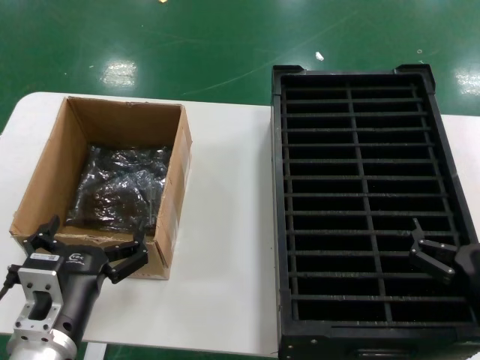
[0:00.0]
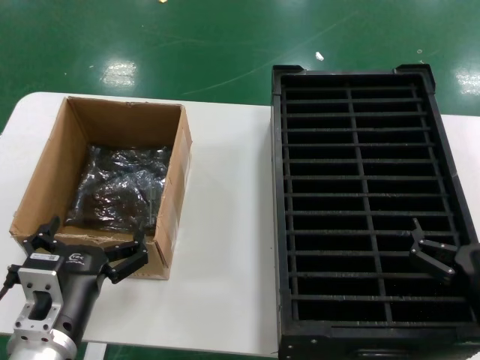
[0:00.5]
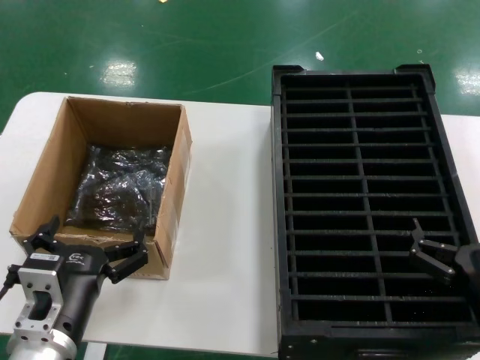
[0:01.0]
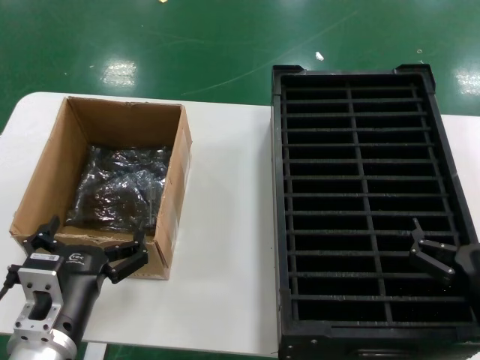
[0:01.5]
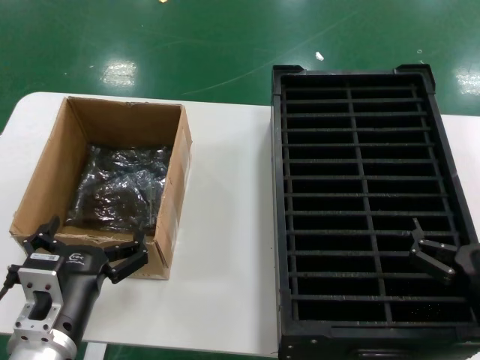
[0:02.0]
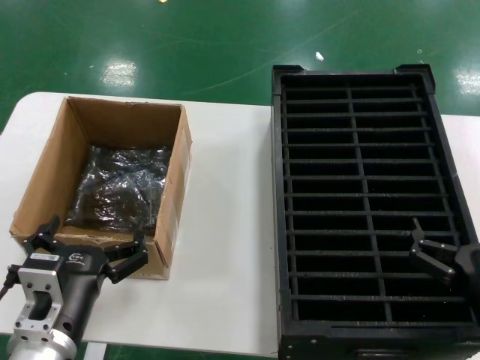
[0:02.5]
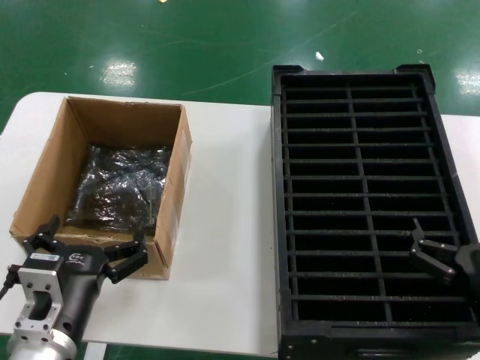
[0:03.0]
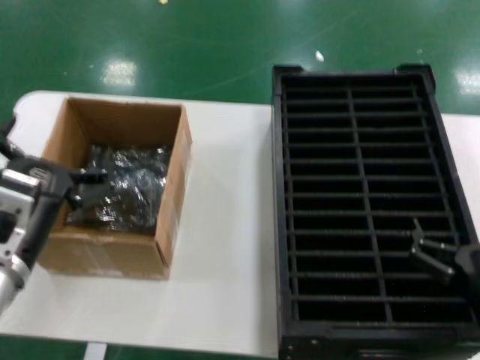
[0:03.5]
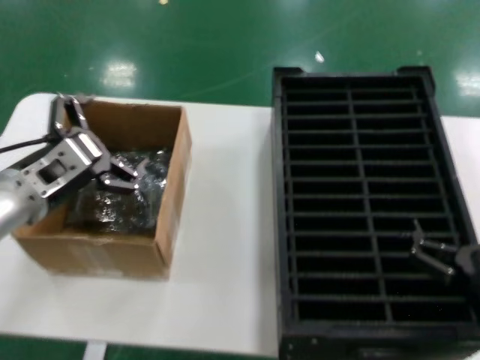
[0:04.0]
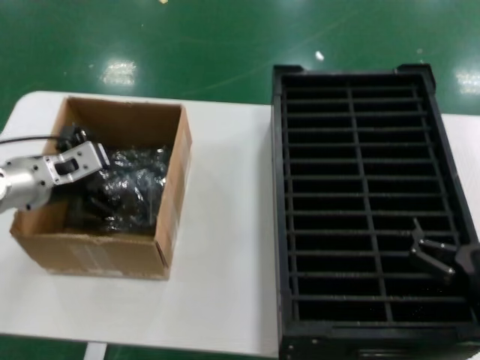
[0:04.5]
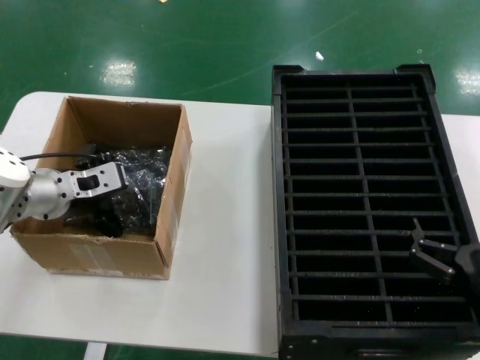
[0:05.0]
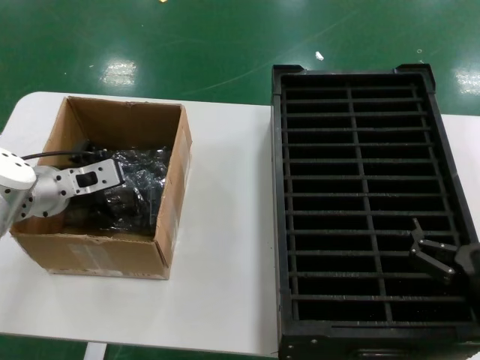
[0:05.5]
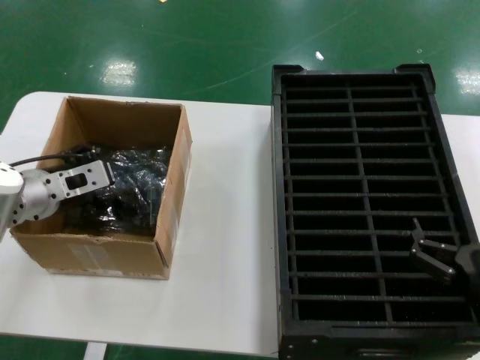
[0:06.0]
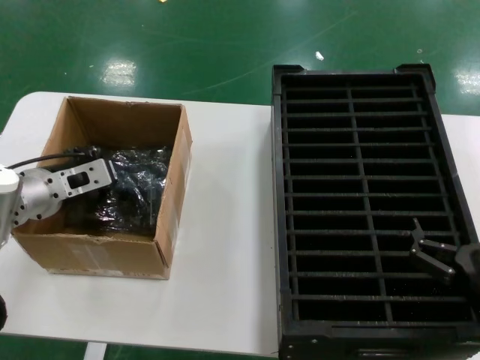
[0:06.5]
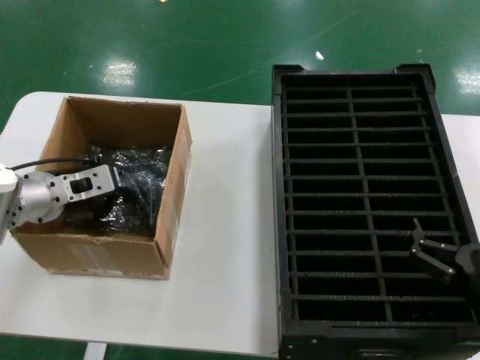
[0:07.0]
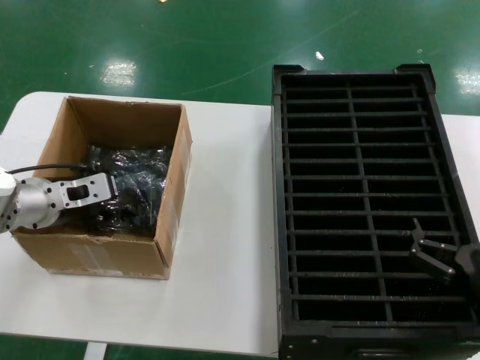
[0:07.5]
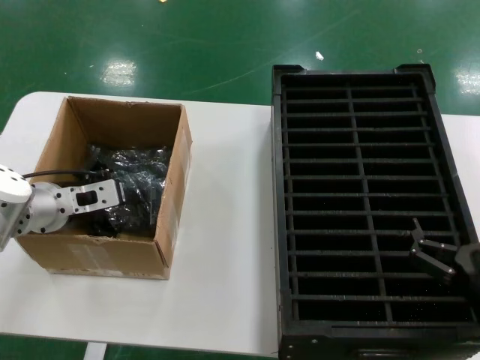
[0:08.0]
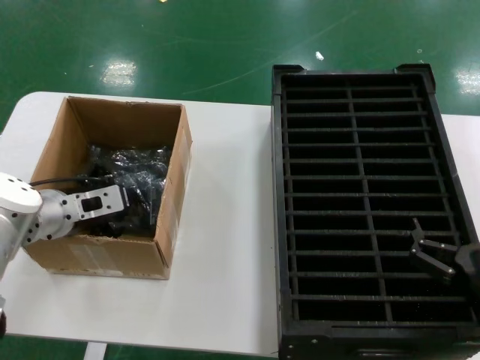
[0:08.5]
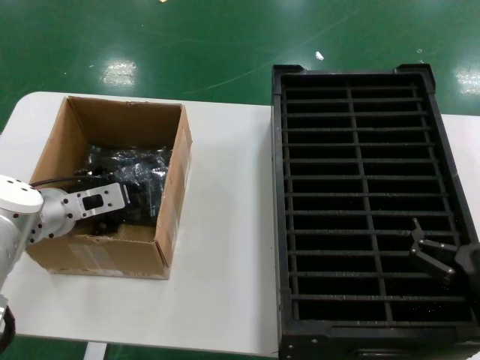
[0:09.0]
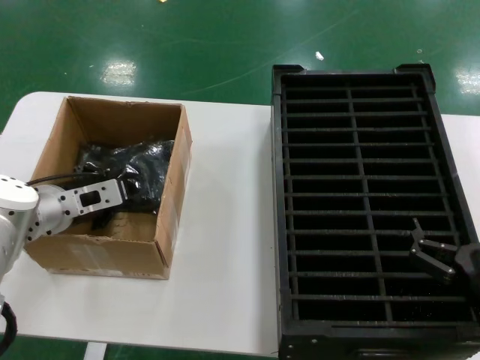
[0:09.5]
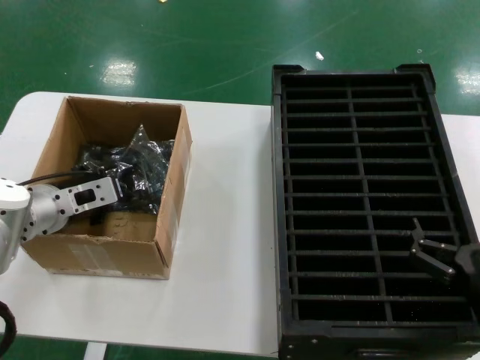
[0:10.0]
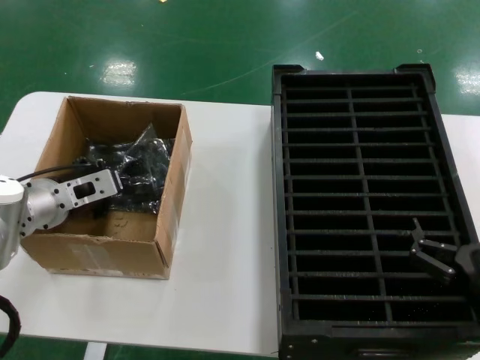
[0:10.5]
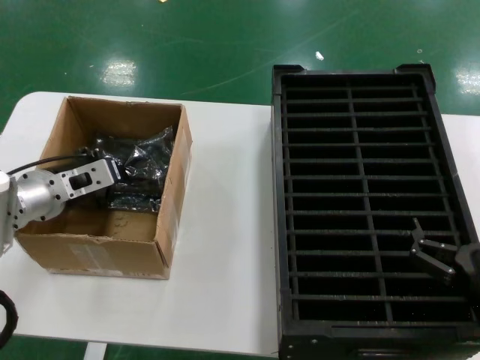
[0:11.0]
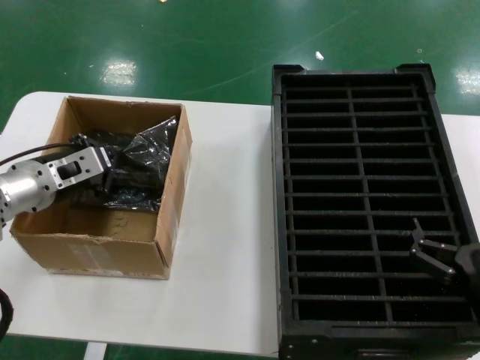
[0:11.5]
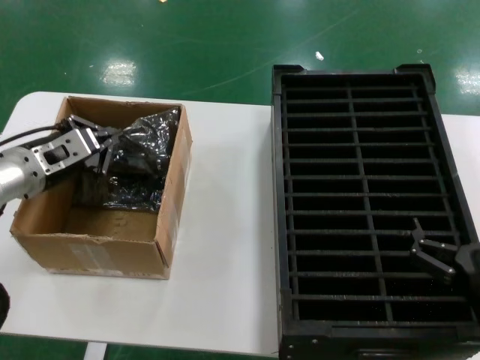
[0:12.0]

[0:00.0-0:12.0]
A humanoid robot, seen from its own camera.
Task of the whole recording: take out graphics card from box remove packaging put into black container.
Step, 0:00.0 to 0:10.5: Grasp the bag.
0:00.0 to 0:02.0: Both hands stay about where they are.
0:02.0 to 0:04.0: The left hand heads upward, forward and to the left, covering some 20 cm.
0:04.0 to 0:06.0: The left hand heads forward, covering some 10 cm.
0:06.0 to 0:10.0: The hands make only small movements.
0:10.0 to 0:12.0: The left hand ends up some 5 cm from where it was.

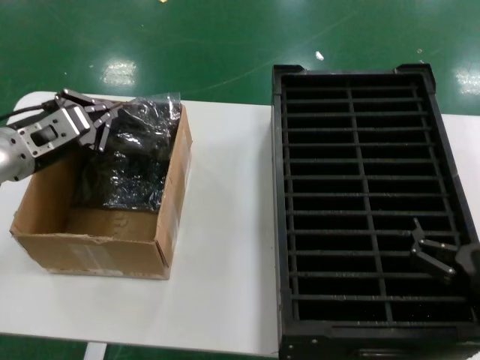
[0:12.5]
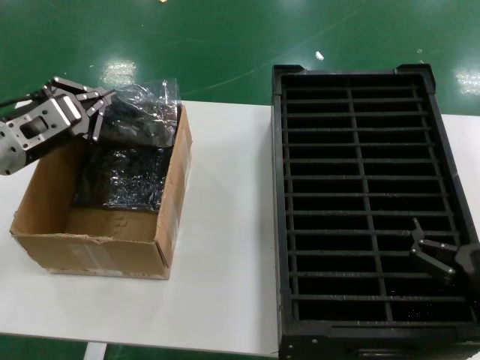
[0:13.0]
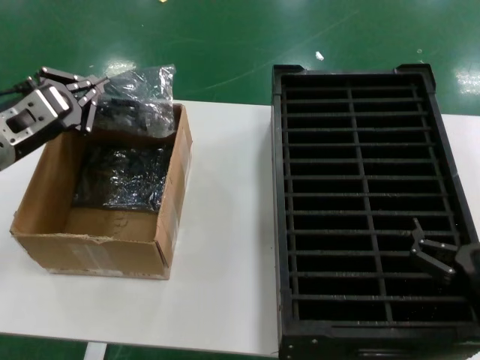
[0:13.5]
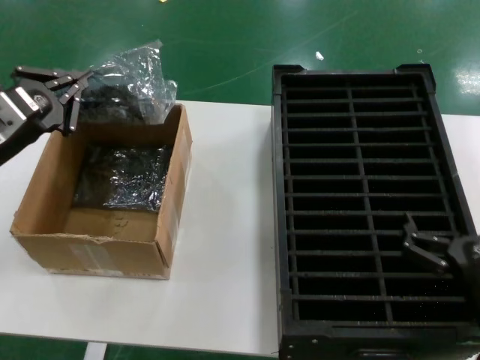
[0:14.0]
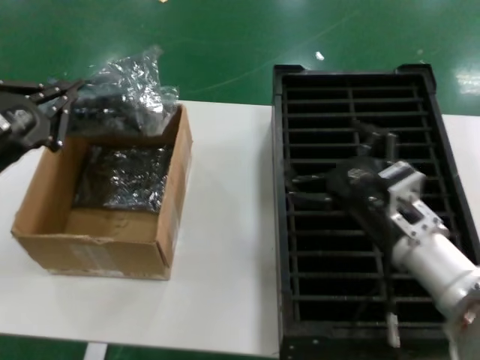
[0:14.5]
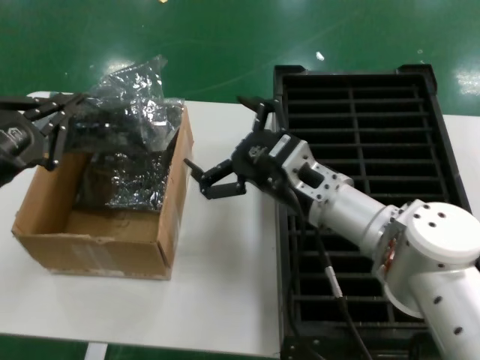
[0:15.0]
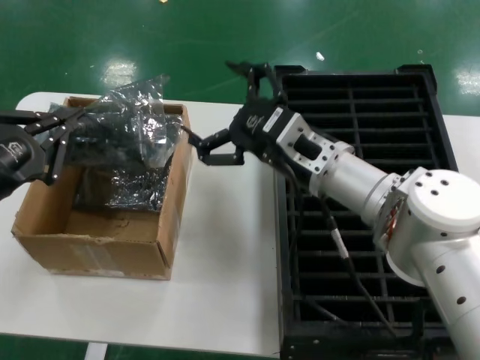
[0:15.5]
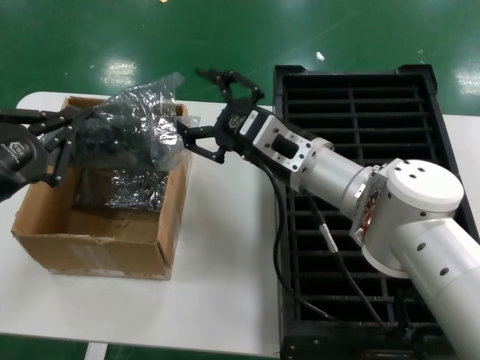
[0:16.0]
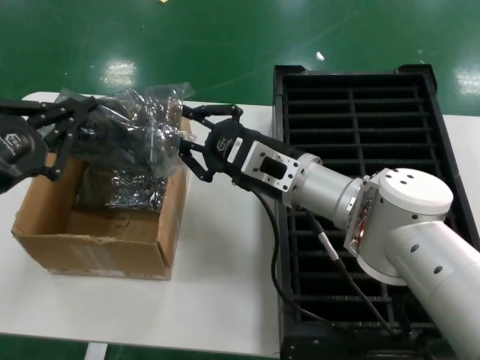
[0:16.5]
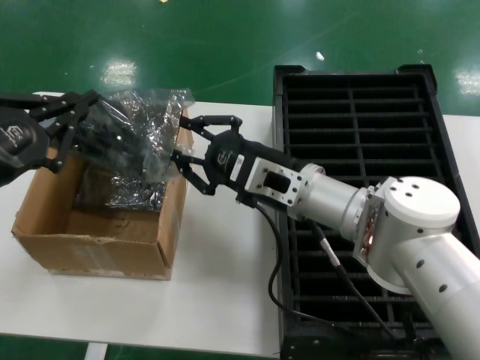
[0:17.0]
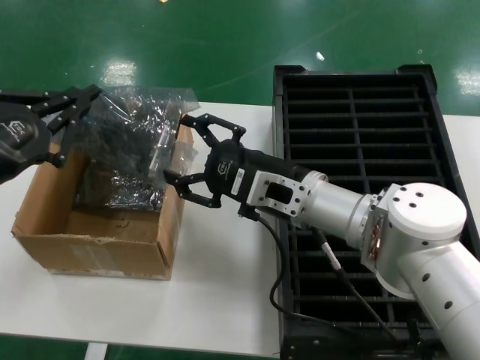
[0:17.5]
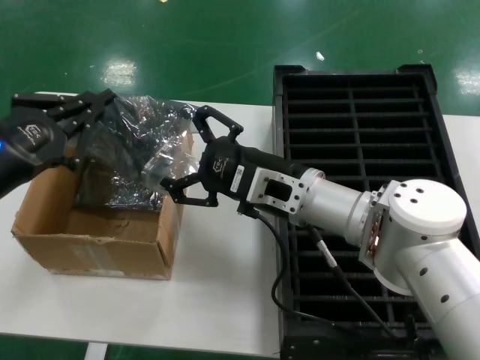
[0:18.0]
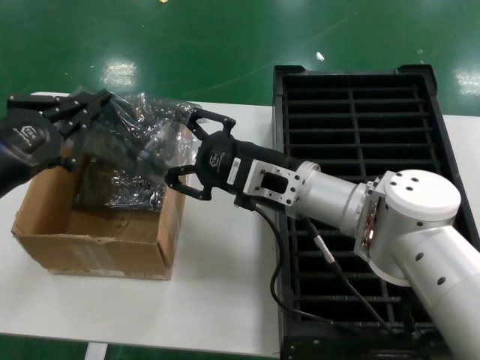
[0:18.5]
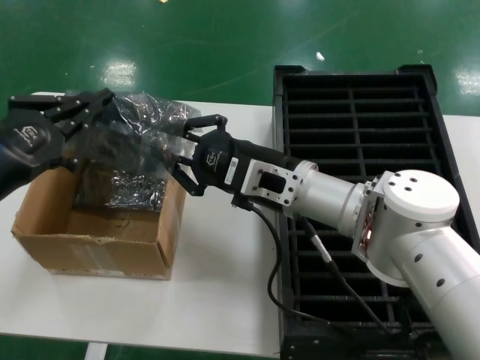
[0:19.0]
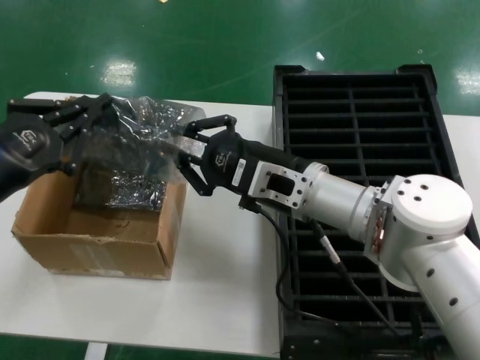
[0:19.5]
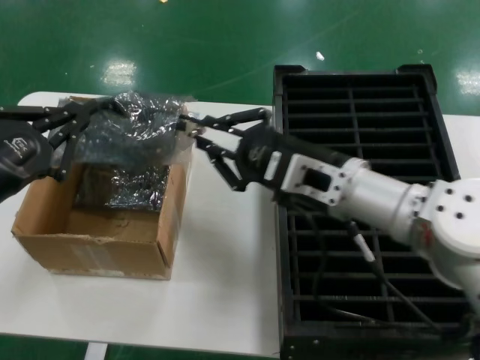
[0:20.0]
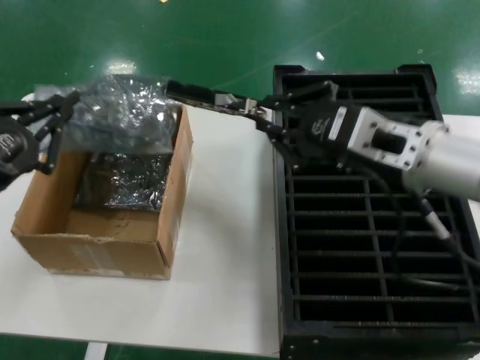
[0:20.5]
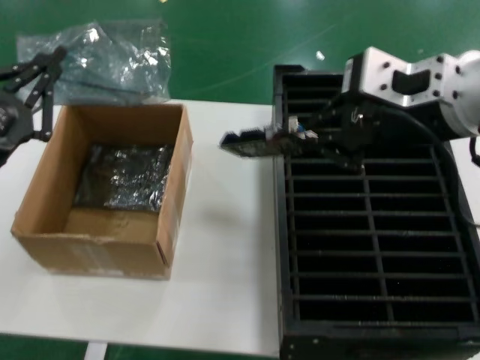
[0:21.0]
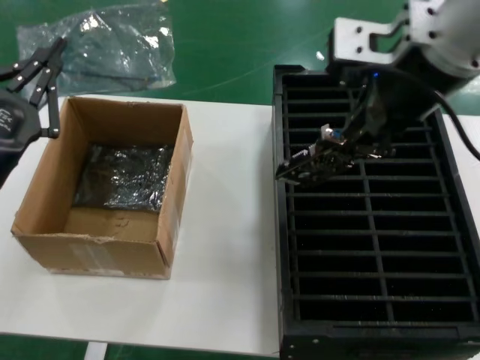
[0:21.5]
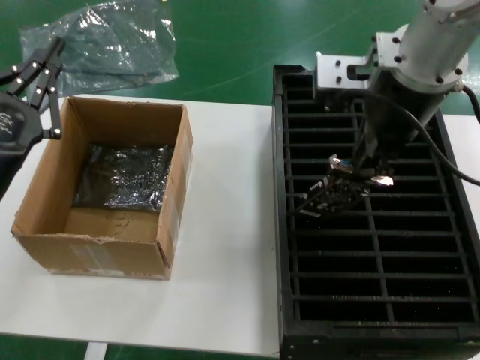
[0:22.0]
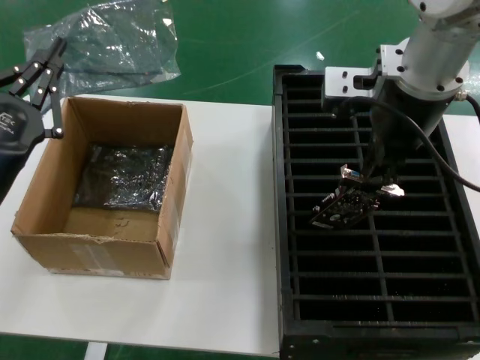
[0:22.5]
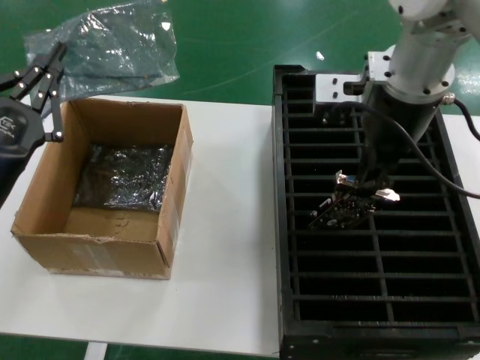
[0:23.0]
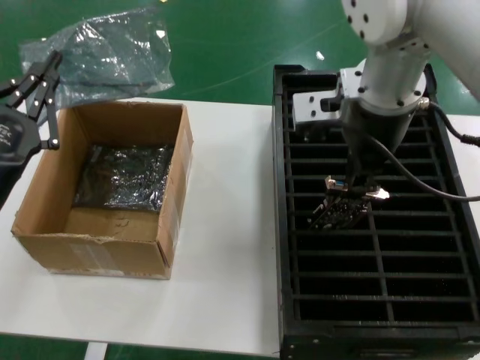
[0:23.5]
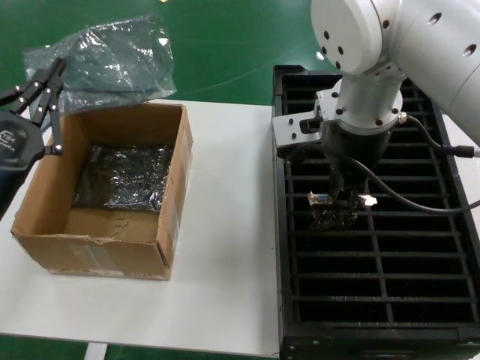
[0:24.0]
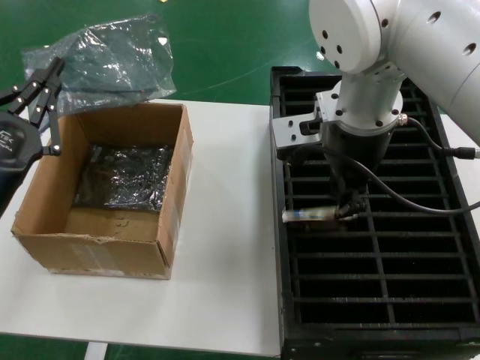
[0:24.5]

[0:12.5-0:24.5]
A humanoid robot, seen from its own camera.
Task of the whole recording: take out graphics card from box remove packaging put into black container.
Step, 0:14.0 to 0:20.5: Take out the hard disk of the bag.
0:12.5 to 0:14.5: The right hand goes some 15 cm forward, to the left and upward; the left hand goes roughly 10 cm backward.
0:14.5 to 0:16.5: The left hand shifts some 5 cm backward; the right hand heads to the left, forward and upward, covering approximately 15 cm.
0:16.5 to 0:18.5: The hands stay close to where they were, moving slightly.
0:18.5 to 0:20.5: The right hand travels to the right, upward and backward by some 15 cm.
0:20.5 to 0:22.5: The right hand heads upward and forward, covering some 15 cm; the left hand ends up roughly 5 cm from where it was.
0:22.5 to 0:24.5: The right hand is displaced to the left by about 5 cm.

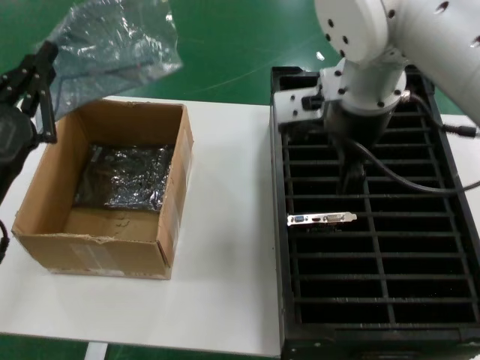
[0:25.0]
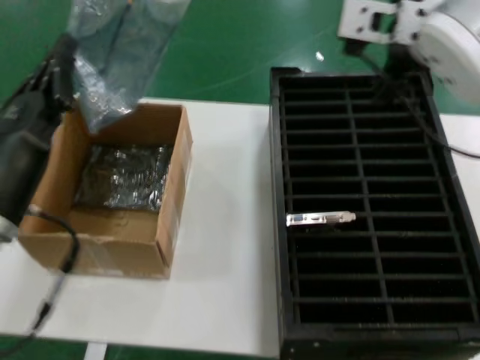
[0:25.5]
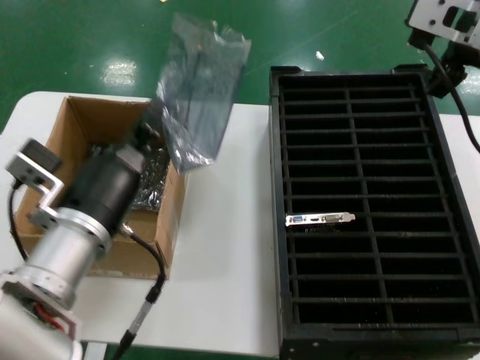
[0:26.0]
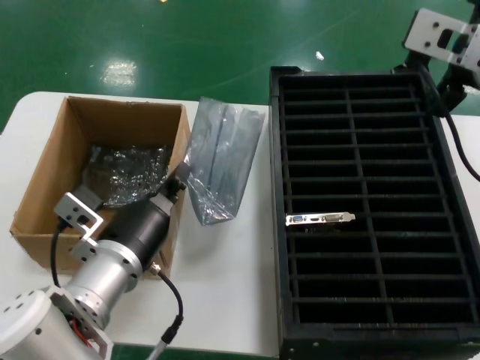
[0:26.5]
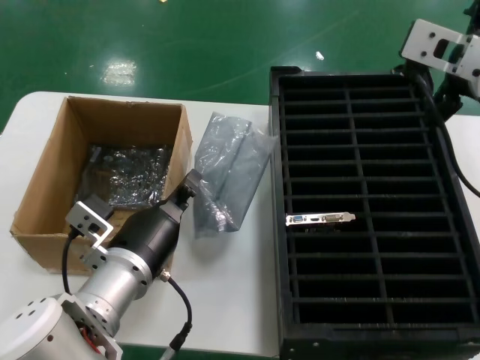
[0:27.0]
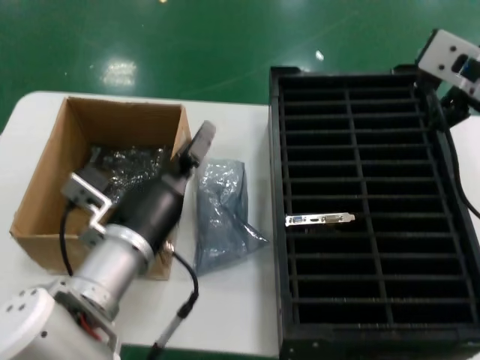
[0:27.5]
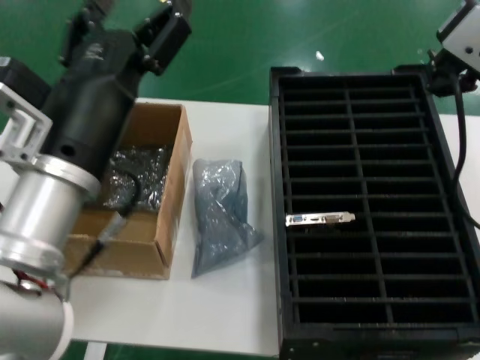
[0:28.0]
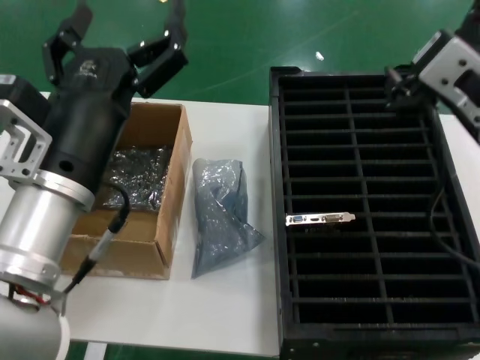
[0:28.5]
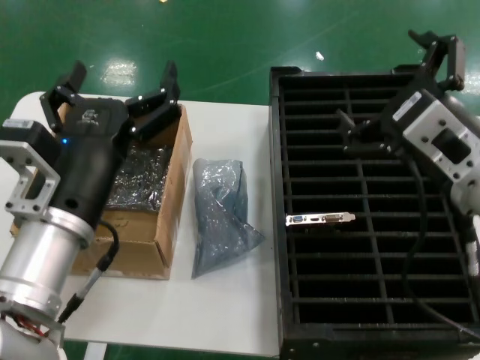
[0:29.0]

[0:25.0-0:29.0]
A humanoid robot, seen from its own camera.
Task of the whole recording: take out graphics card from box remove packaging put into black container.
0:25.0 to 0:27.0: The left hand is displaced to the right by roughly 20 cm, while the right hand is displaced to the right and backward by roughly 15 cm.
0:27.0 to 0:29.0: The left hand shifts about 10 cm upward. Meanwhile the right hand shifts roughly 15 cm downward and backward.
